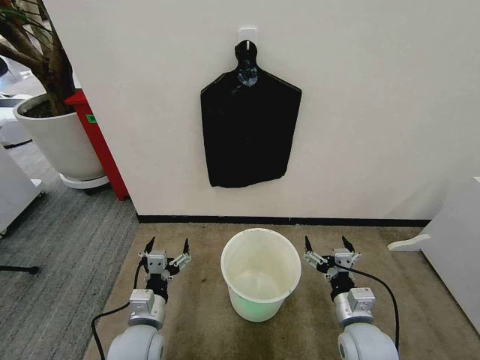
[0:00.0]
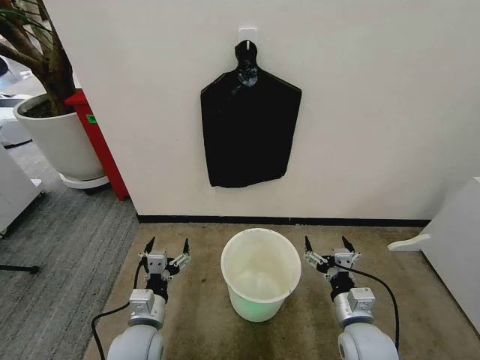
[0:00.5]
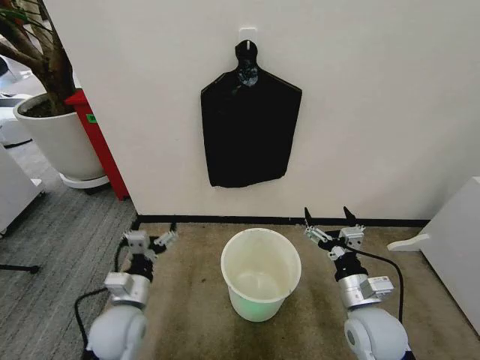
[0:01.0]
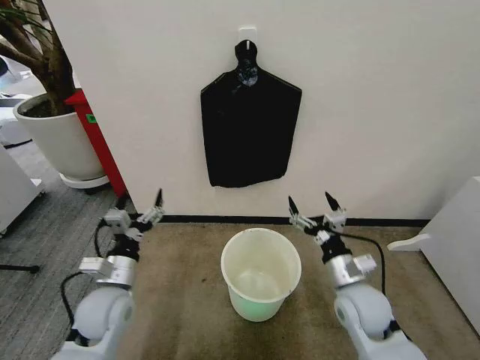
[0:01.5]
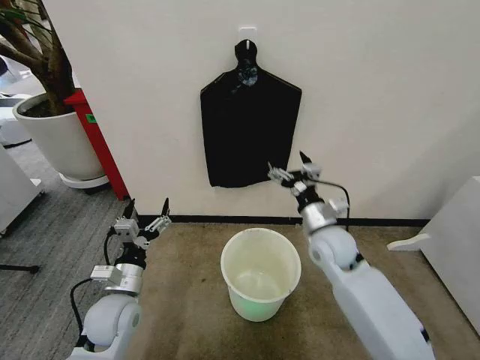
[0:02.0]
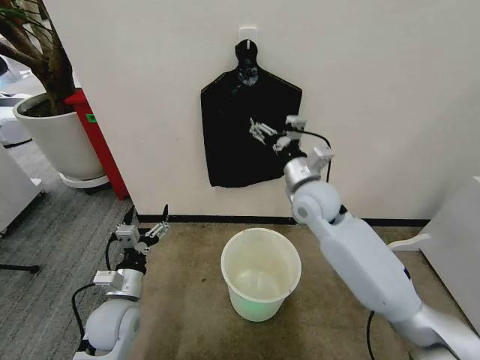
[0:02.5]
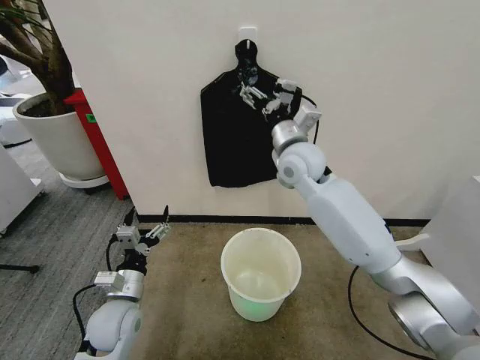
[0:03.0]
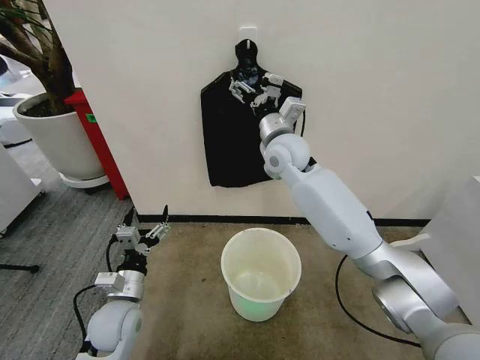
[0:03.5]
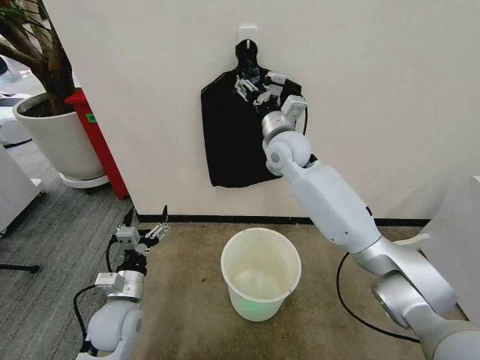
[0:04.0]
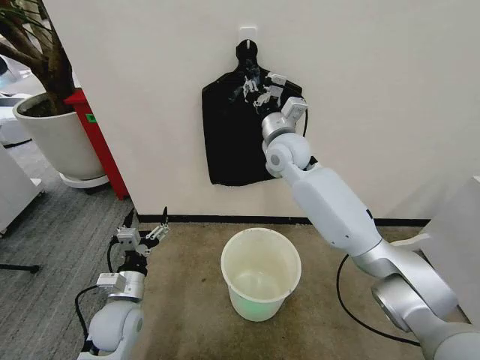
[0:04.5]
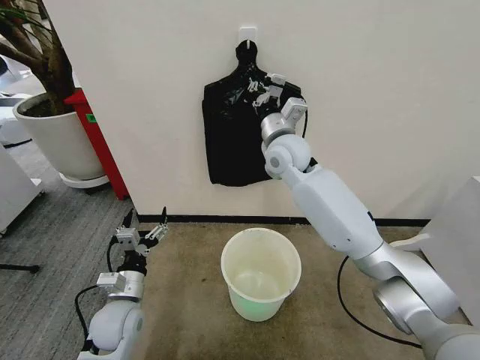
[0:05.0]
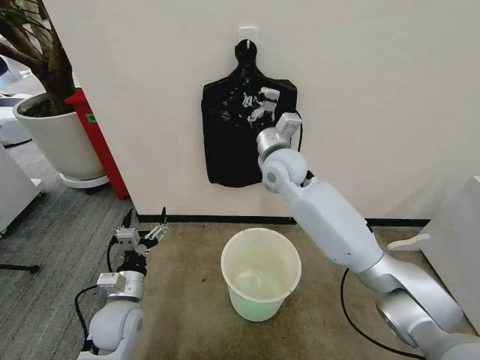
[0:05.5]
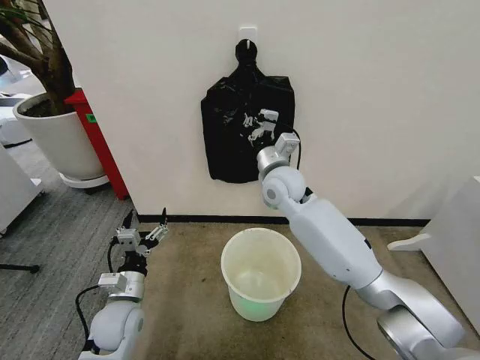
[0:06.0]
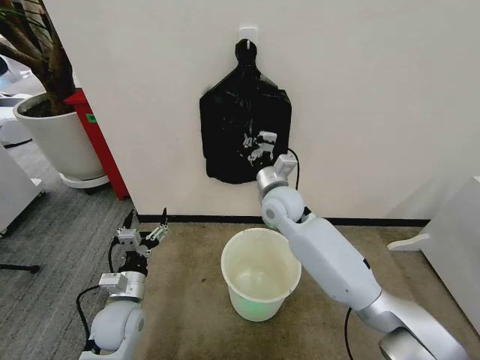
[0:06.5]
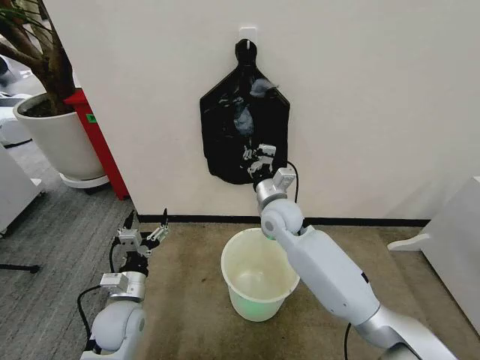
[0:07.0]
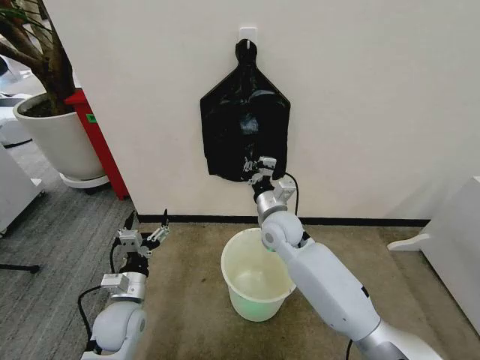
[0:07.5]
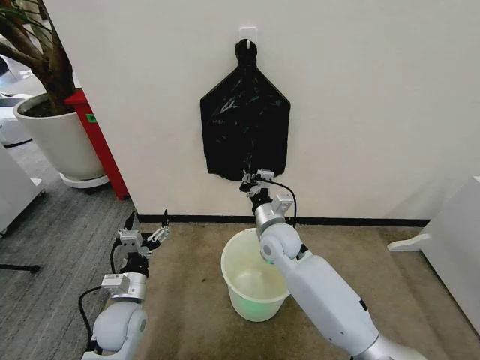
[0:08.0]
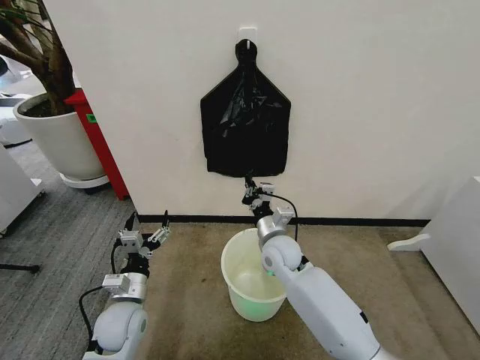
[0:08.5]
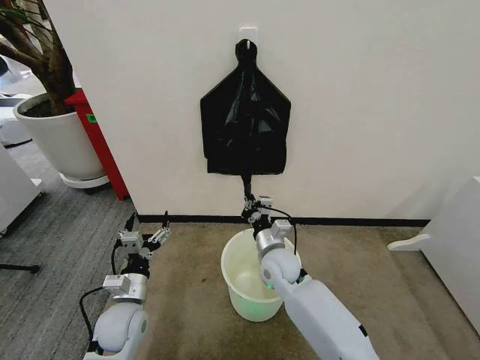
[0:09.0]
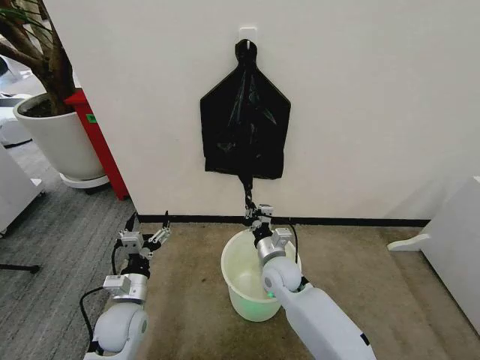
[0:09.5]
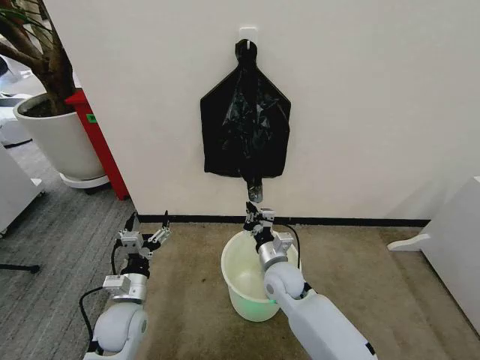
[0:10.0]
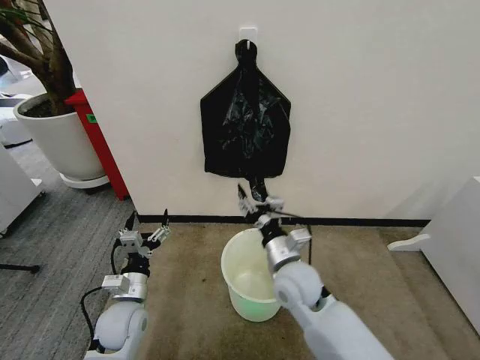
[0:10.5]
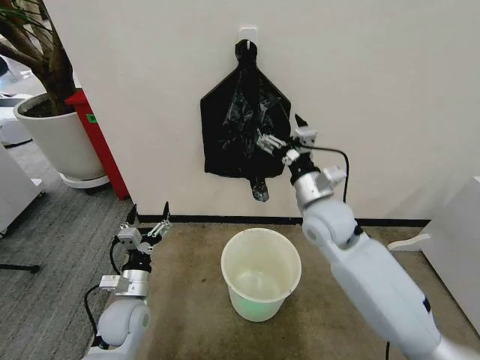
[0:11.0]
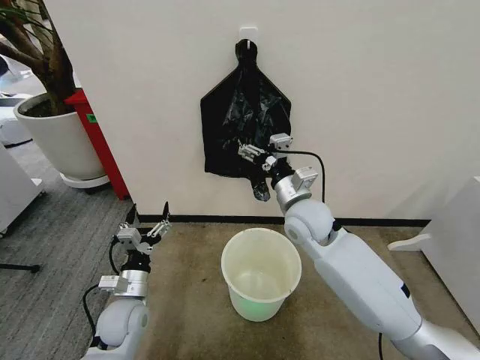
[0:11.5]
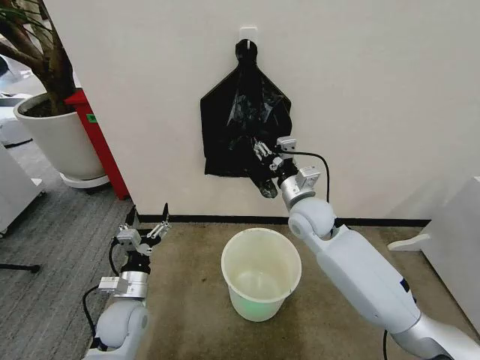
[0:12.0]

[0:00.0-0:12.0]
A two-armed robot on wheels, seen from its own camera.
Task of the whole recording: Place the garbage bag over the trash bin.
0:02.0 to 0:04.0: The right gripper travels upward, forward and to the left by approximately 25 cm.
0:04.0 to 0:06.0: The right gripper travels downward and backward by some 10 cm, and closes its fingers.
0:06.0 to 0:08.0: The right gripper travels downward and backward by some 15 cm.
0:08.0 to 0:10.0: The right gripper heads downward and backward, covering roughly 10 cm.
0:10.0 to 0:12.0: The right gripper is displaced upward and forward by about 15 cm, and opens up.

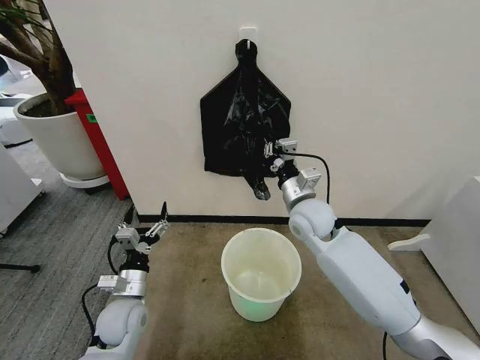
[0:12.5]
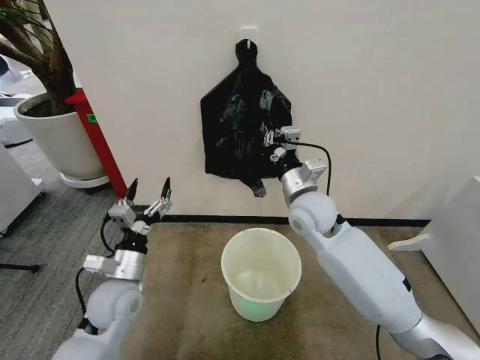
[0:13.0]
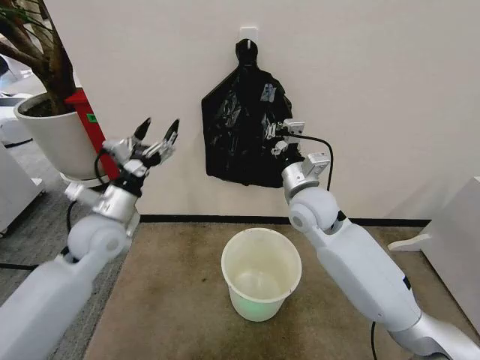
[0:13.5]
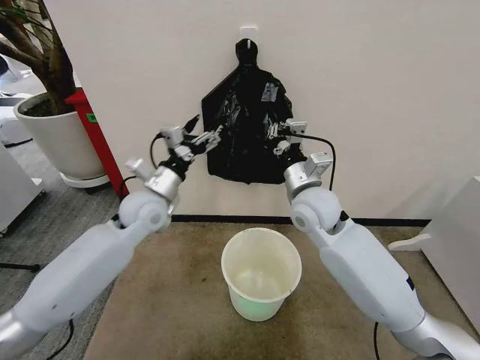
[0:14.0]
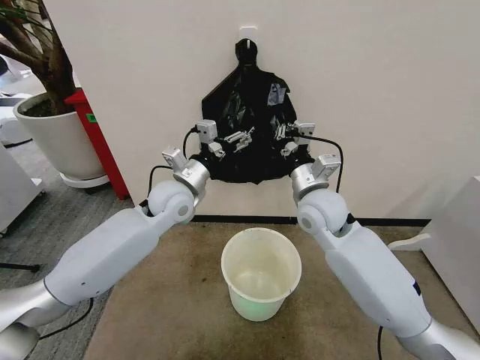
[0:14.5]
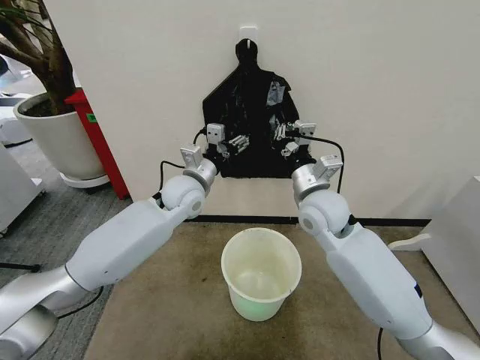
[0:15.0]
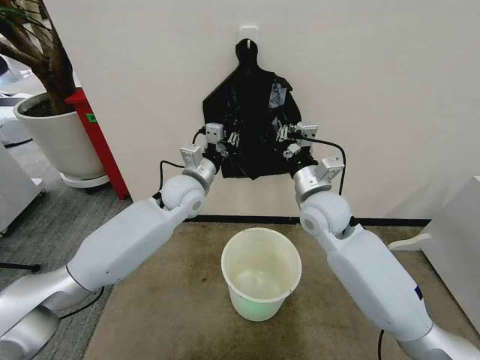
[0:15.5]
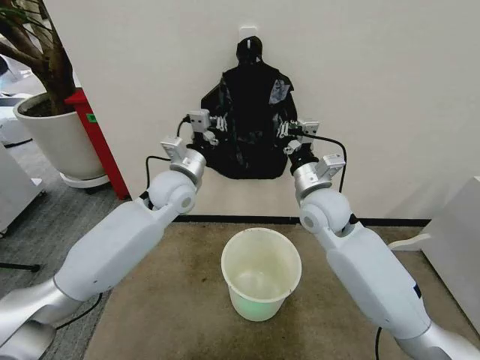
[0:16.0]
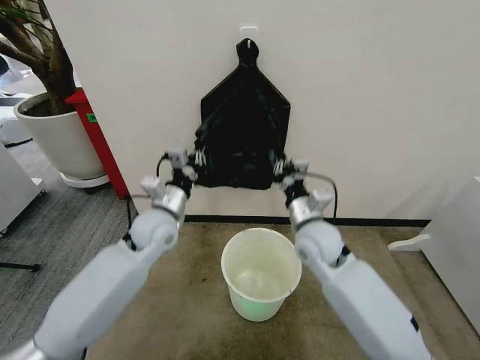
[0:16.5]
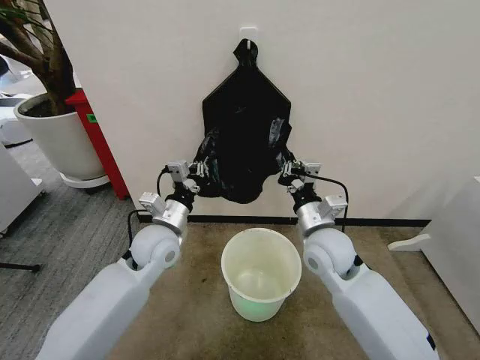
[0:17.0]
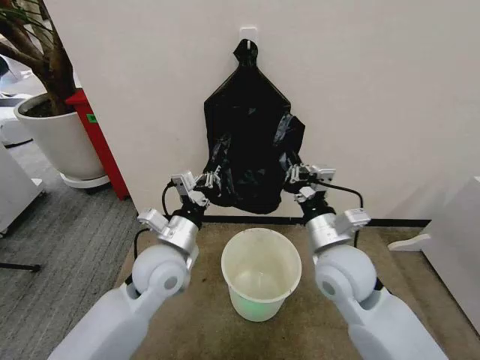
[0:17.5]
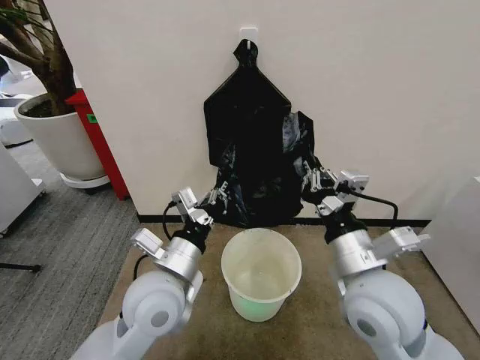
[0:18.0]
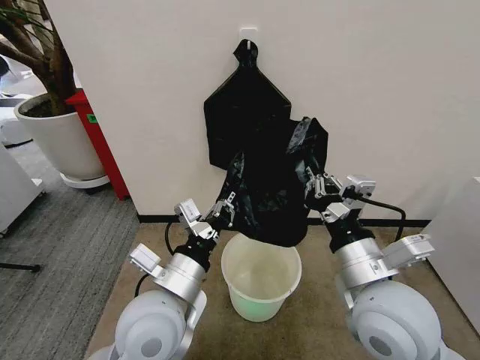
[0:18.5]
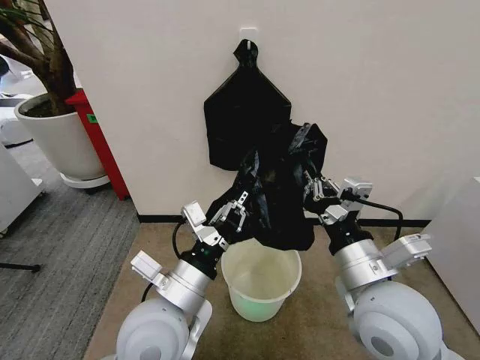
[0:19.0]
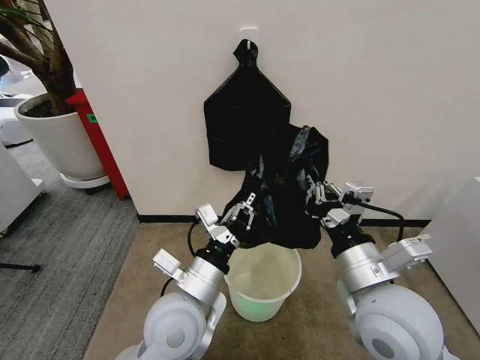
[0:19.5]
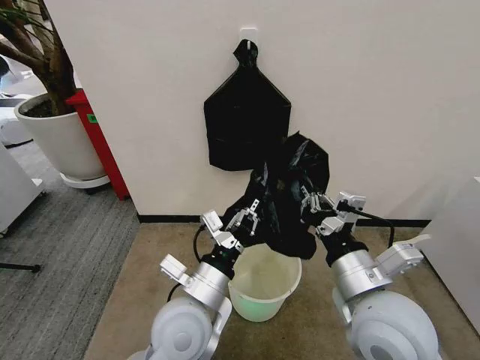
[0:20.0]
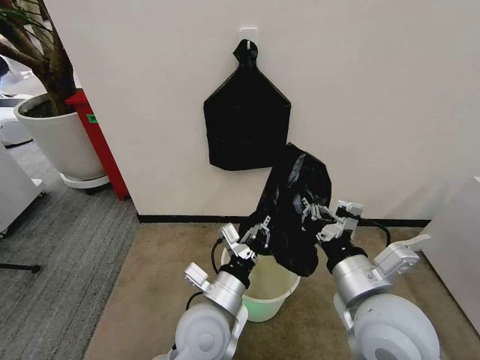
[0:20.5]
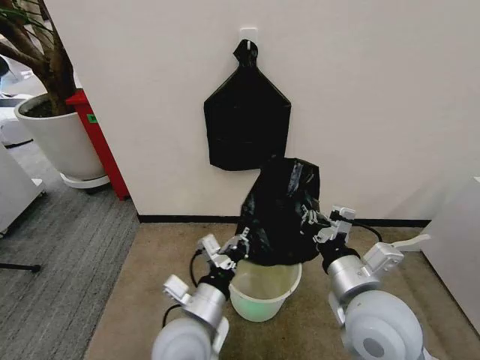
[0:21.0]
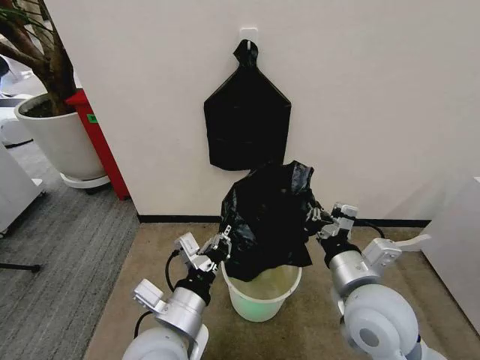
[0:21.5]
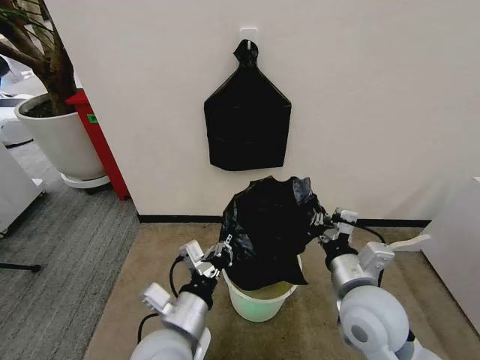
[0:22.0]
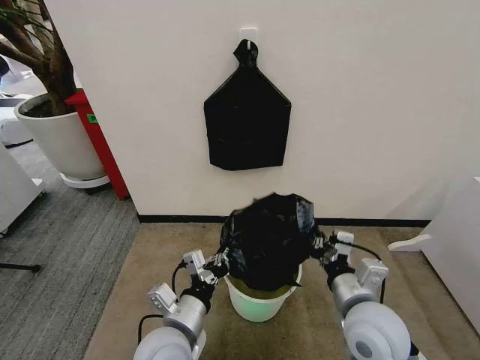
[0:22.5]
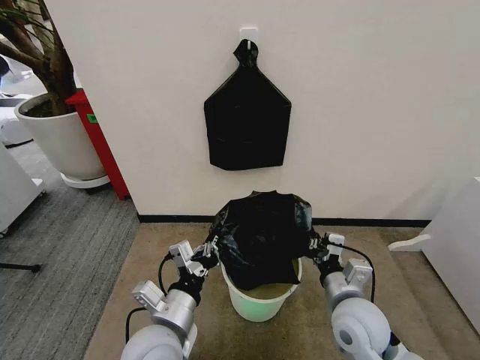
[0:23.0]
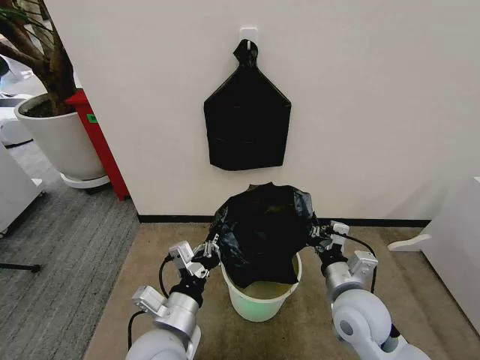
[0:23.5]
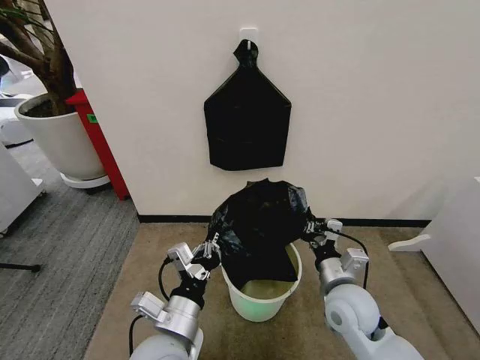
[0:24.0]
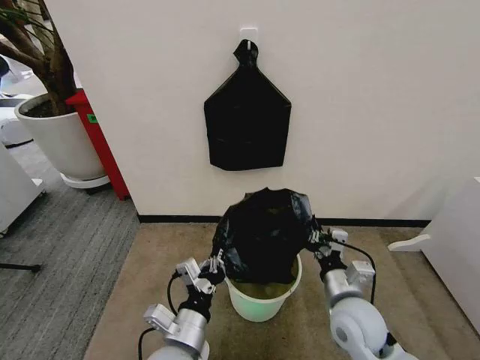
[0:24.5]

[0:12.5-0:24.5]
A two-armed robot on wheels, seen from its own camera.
Task of the whole recording: Place the garbage bag over the trash bin.
0:12.5 to 0:14.5: The right gripper changes place by some 5 cm. The left gripper goes roughly 30 cm upward, forward and to the right.
0:14.5 to 0:16.5: The grippers both shift downward by about 5 cm. The left gripper closes its fingers.
0:16.5 to 0:18.5: The right gripper heads backward and upward, covering some 20 cm. Meanwhile the left gripper is displaced backward by some 20 cm.
0:18.5 to 0:20.5: The left gripper shifts some 10 cm downward and to the right.
0:20.5 to 0:22.5: The left gripper heads to the left, covering approximately 5 cm. Meanwhile the right gripper heads downward, covering some 10 cm.
0:22.5 to 0:24.5: The right gripper shifts some 5 cm downward.

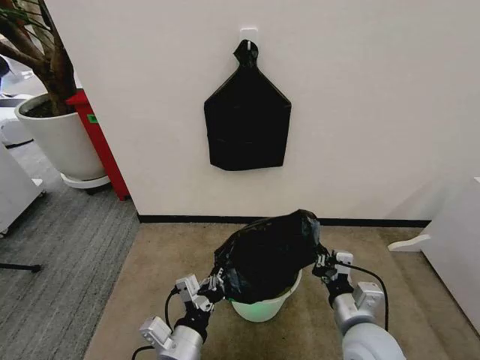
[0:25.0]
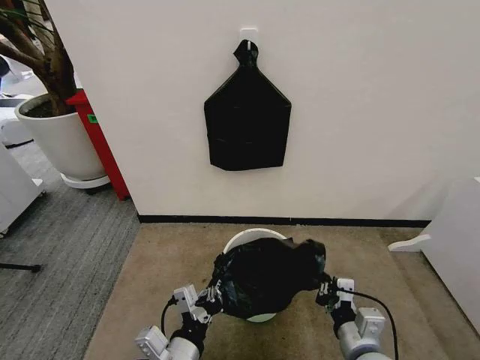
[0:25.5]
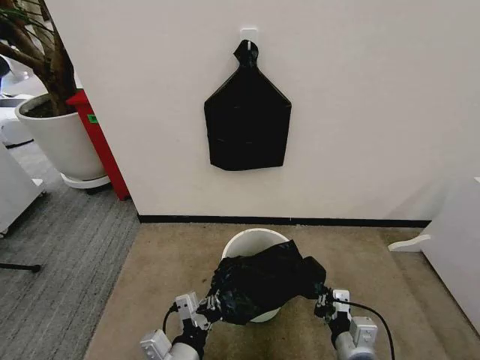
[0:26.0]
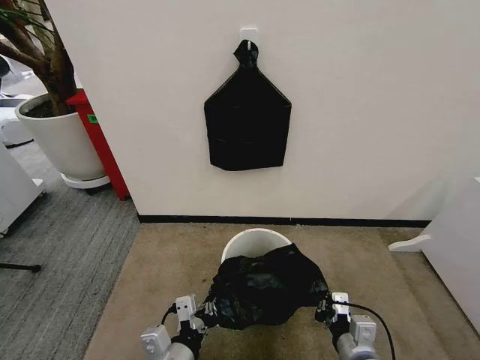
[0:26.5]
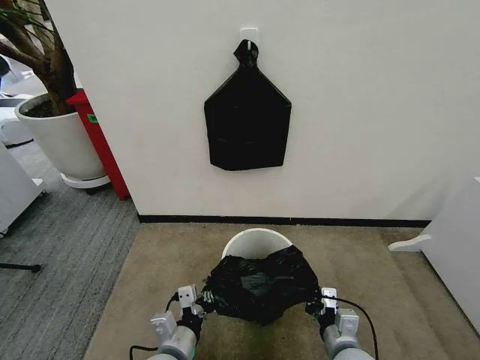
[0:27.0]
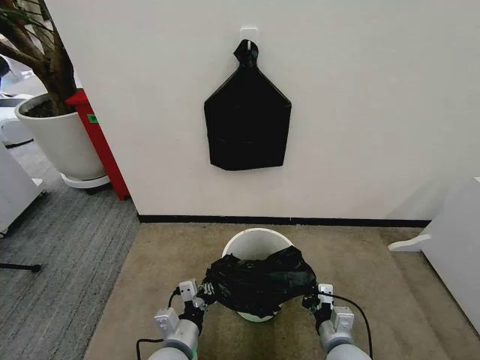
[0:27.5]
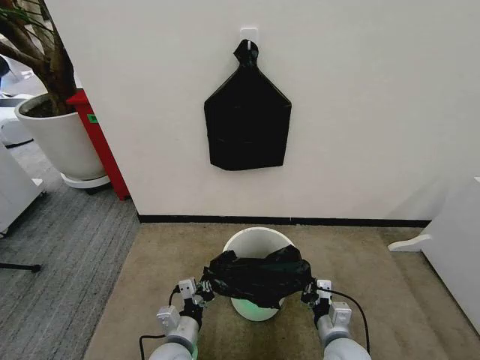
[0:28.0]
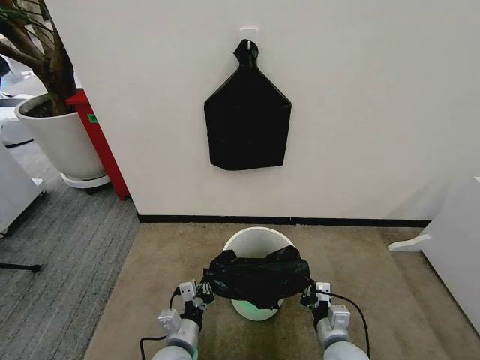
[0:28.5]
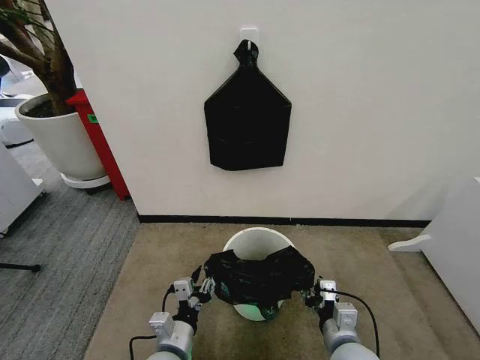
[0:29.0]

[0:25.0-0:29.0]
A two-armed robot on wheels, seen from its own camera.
Task of the whole recording: Place the garbage bag over the trash bin.
0:25.0 to 0:27.0: The right gripper is displaced downward by approximately 10 cm. The left gripper shifts about 5 cm downward.
0:27.0 to 0:29.0: The right gripper opens up. Meanwhile the left gripper opens.
